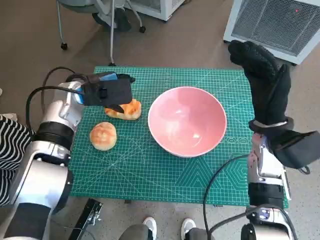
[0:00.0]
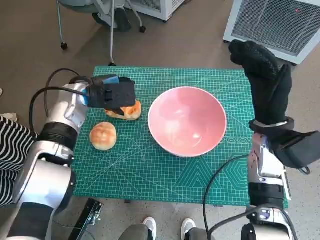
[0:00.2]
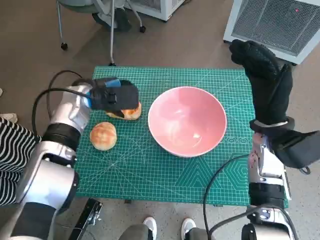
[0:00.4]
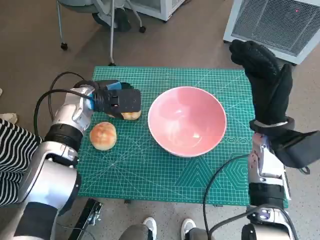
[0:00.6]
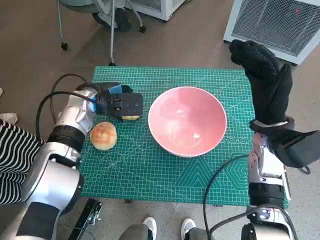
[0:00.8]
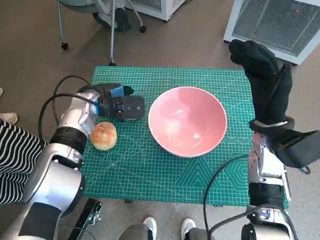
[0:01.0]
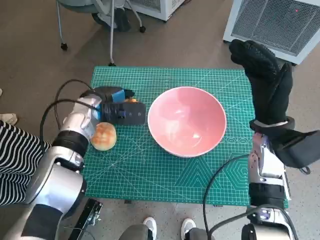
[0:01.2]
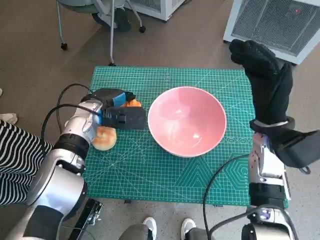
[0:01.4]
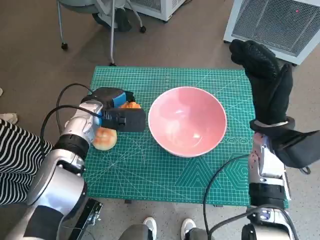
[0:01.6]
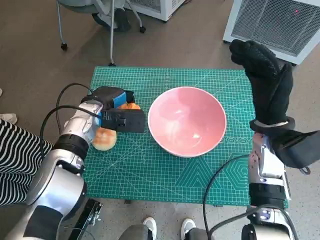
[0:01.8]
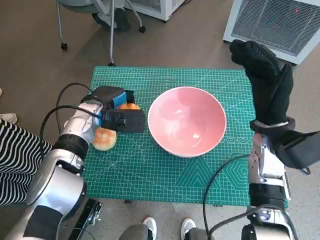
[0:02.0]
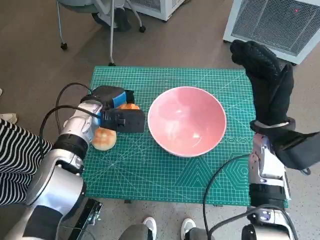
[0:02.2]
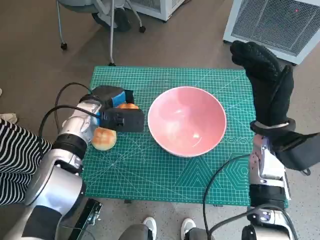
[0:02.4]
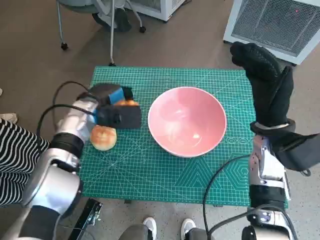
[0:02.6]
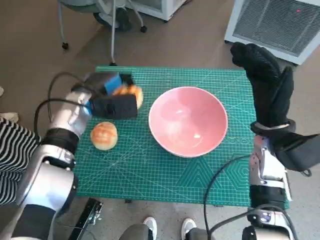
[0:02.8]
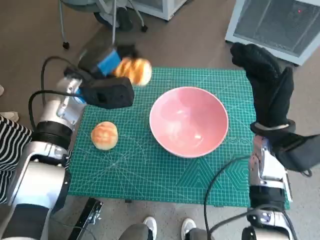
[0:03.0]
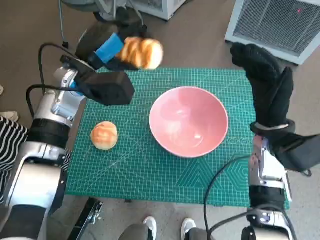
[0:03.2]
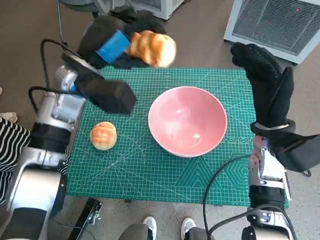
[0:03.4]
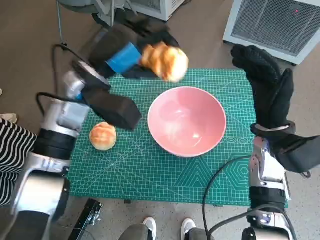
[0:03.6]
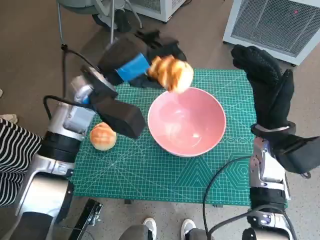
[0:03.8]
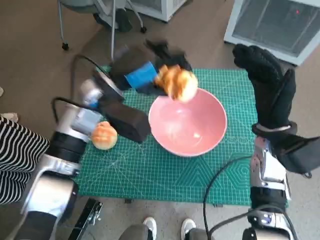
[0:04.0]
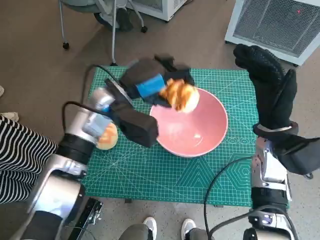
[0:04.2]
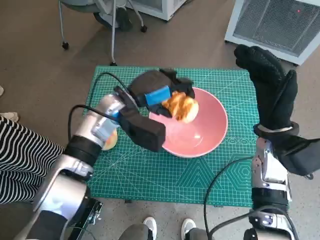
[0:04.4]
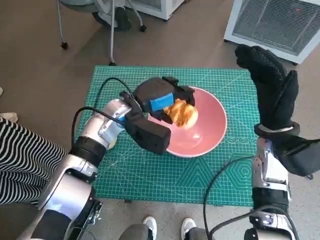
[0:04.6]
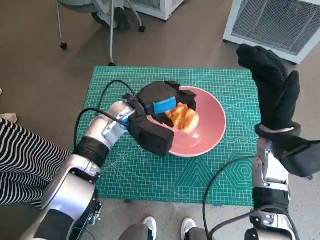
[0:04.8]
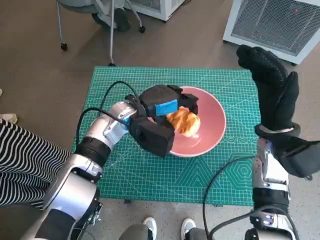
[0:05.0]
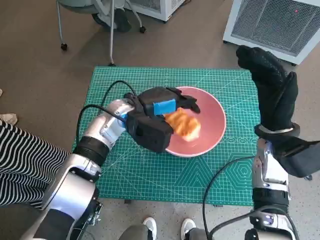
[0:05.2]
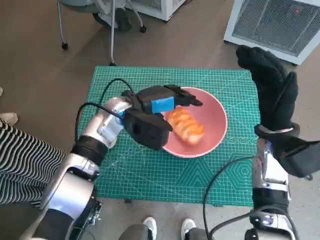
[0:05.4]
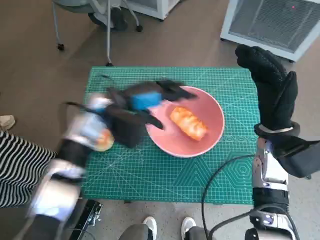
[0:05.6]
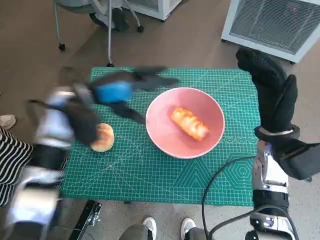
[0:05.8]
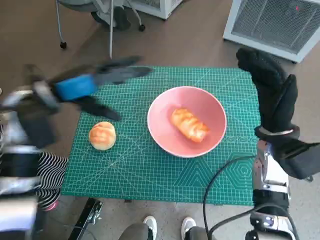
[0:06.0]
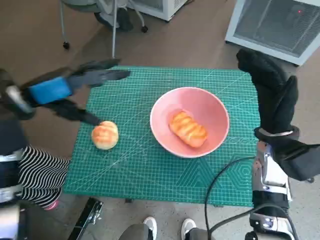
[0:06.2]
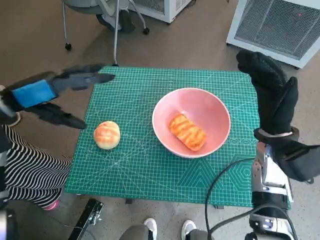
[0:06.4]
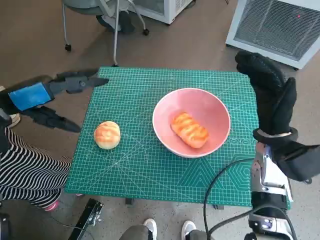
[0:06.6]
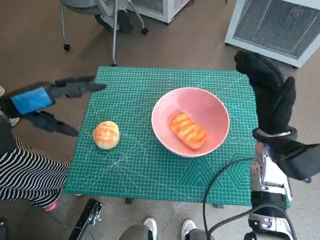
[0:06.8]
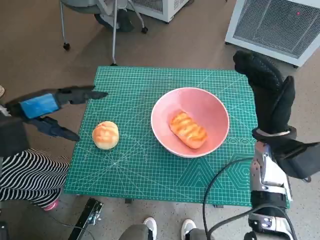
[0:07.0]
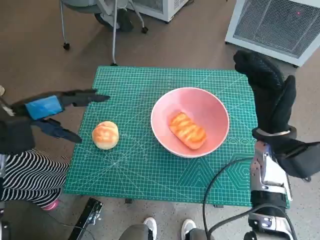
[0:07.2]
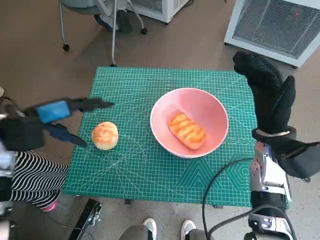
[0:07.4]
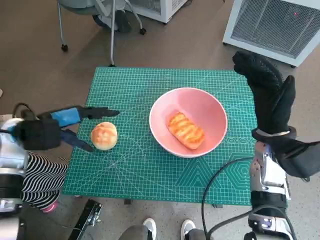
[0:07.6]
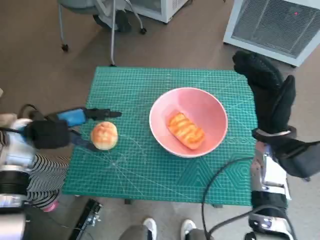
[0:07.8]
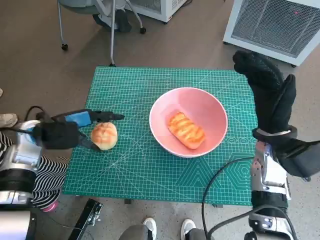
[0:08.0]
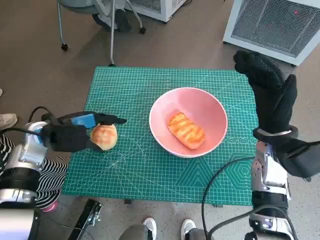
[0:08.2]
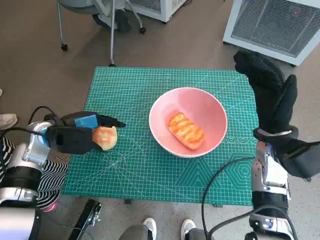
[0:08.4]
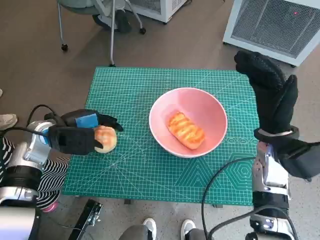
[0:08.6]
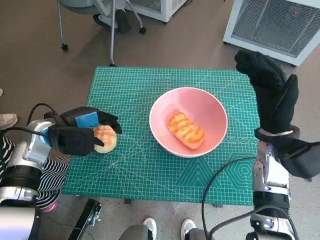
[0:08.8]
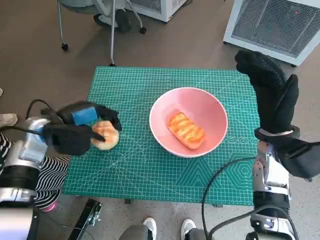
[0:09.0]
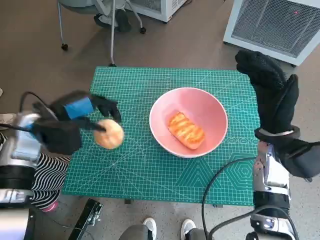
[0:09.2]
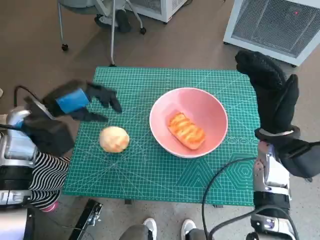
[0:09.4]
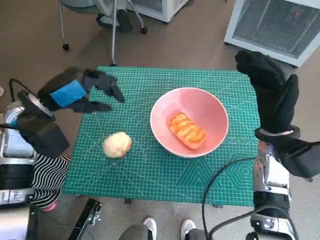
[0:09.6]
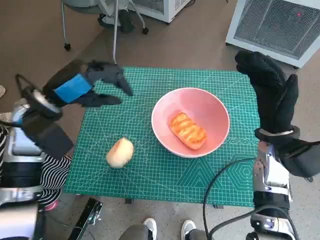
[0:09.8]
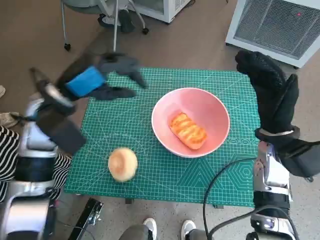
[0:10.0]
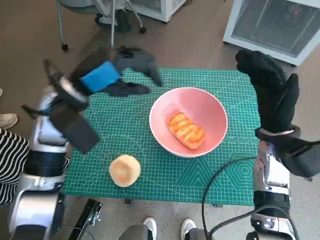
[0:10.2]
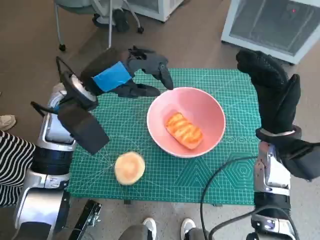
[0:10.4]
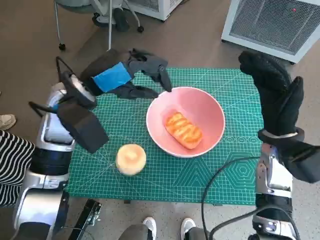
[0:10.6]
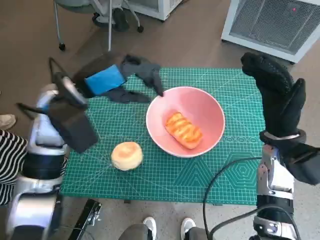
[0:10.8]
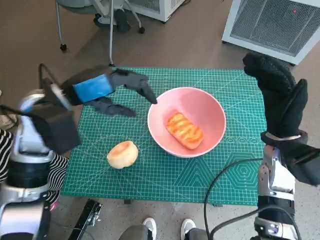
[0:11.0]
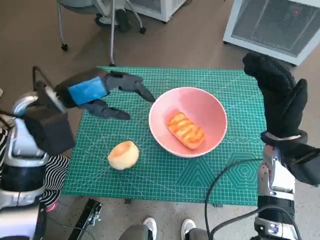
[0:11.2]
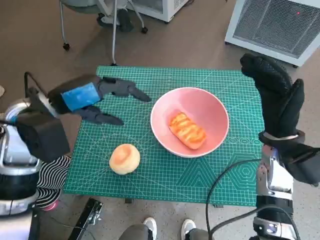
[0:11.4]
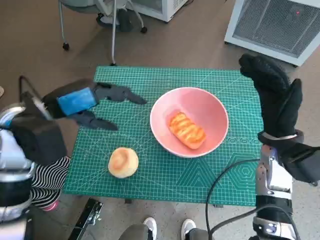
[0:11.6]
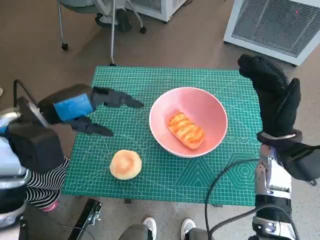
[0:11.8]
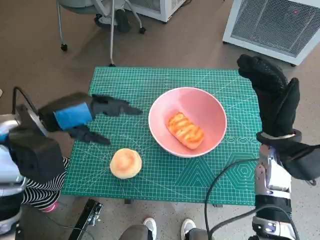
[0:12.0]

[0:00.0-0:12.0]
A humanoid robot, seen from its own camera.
Task of the whole recording: Push the bowl into the center of the table and put the bread into the bowl.
Step, 0:02.0 to 0:05.6: Place the long bread in pink bowl with left hand.
Step, 0:06.0 to 0:08.8: Grasp the round bread with left hand.
0:00.0 to 0:01.6: The left hand goes about 5 cm downward.
0:01.6 to 0:03.0: The left hand is displaced upward by roughly 5 cm.
0:03.0 to 0:04.4: The left hand shifts about 10 cm to the right.
0:04.4 to 0:06.0: The left hand moves to the left and upward, some 15 cm.
0:06.0 to 0:07.6: The left hand is displaced downward and to the left by about 10 cm.
0:07.6 to 0:09.0: There are only small adjustments of the hands.
0:09.0 to 0:10.4: The left hand heads to the right and upward, covering about 15 cm.
0:10.4 to 0:12.0: The left hand shifts roughly 10 cm to the left and backward.

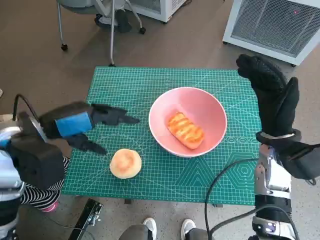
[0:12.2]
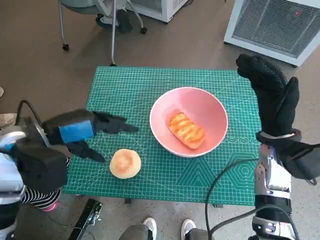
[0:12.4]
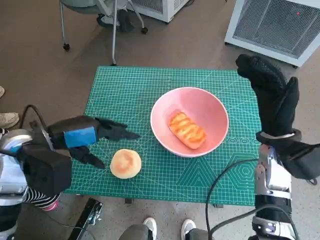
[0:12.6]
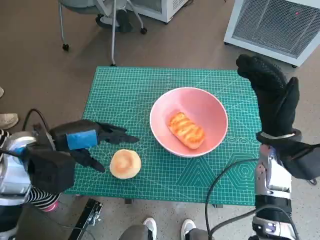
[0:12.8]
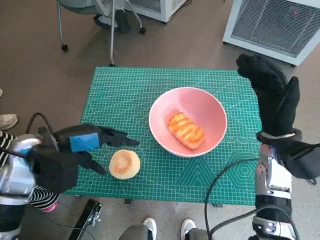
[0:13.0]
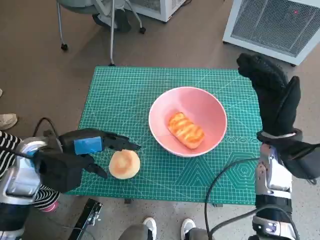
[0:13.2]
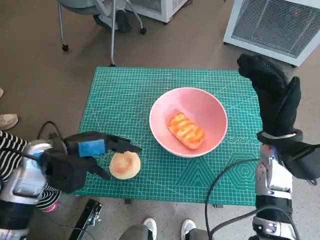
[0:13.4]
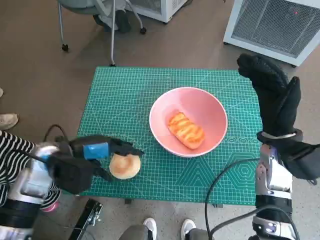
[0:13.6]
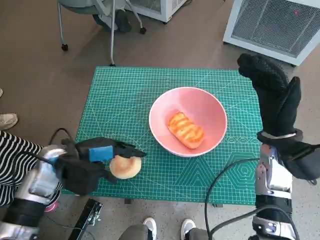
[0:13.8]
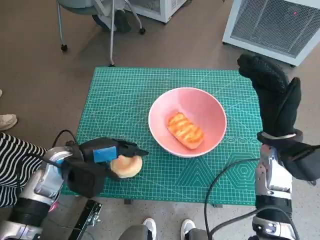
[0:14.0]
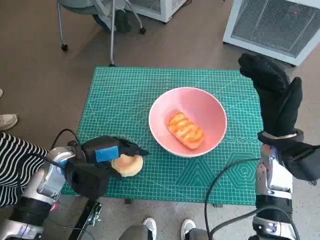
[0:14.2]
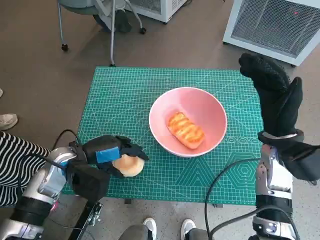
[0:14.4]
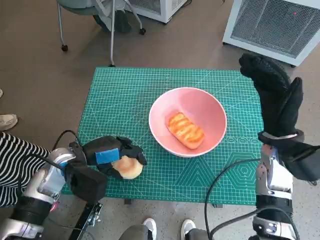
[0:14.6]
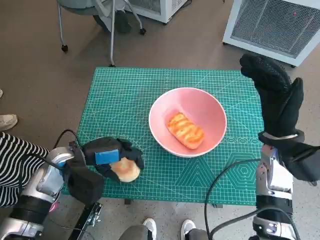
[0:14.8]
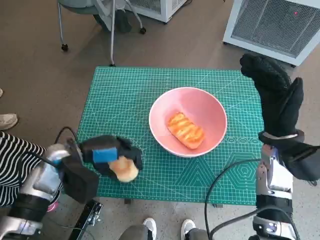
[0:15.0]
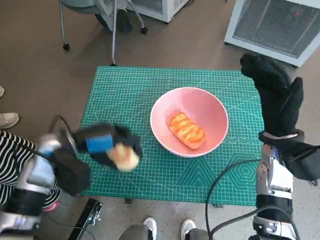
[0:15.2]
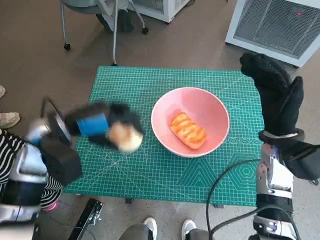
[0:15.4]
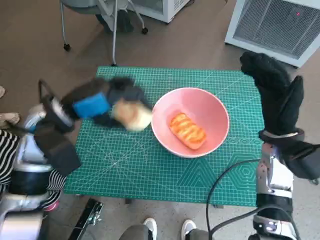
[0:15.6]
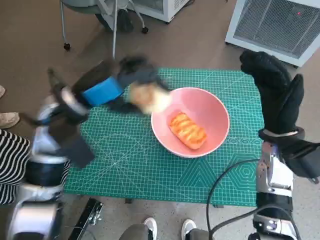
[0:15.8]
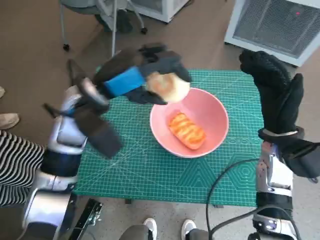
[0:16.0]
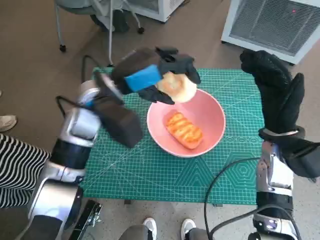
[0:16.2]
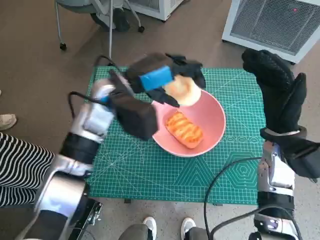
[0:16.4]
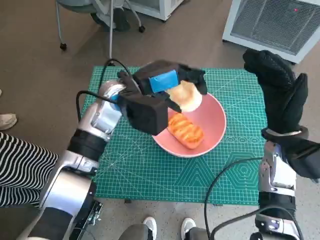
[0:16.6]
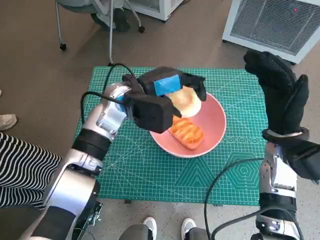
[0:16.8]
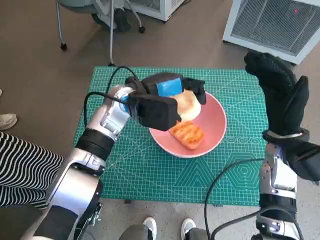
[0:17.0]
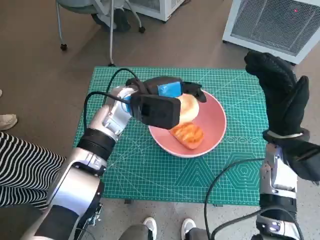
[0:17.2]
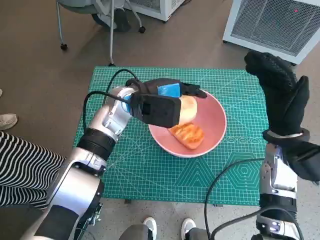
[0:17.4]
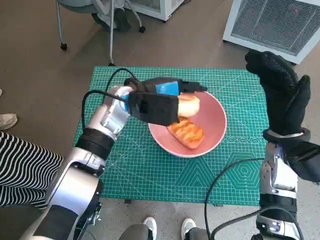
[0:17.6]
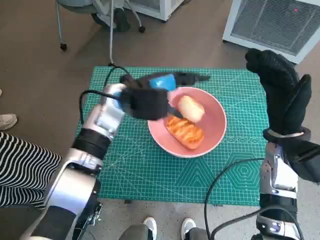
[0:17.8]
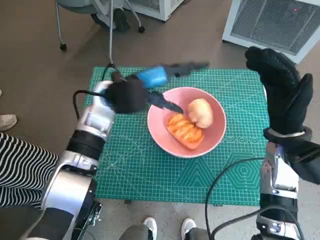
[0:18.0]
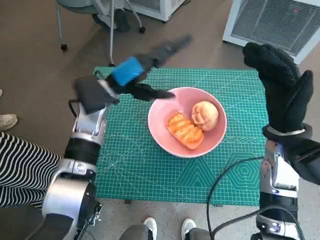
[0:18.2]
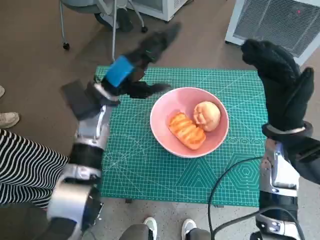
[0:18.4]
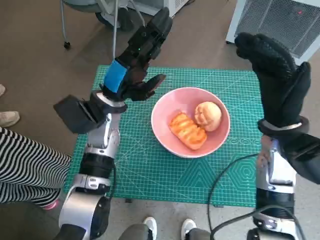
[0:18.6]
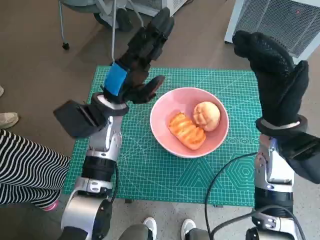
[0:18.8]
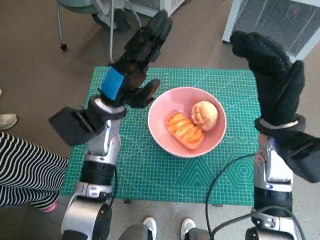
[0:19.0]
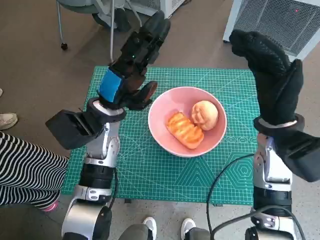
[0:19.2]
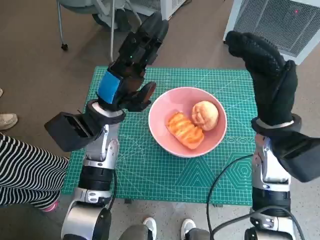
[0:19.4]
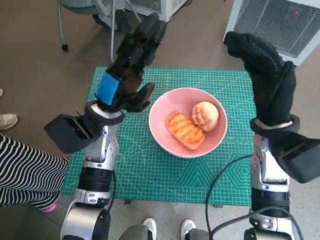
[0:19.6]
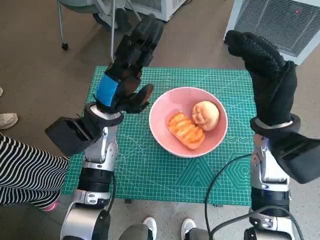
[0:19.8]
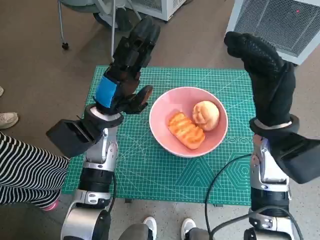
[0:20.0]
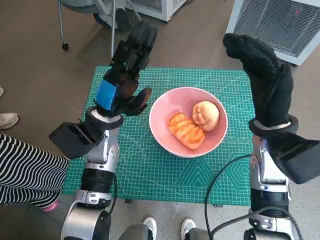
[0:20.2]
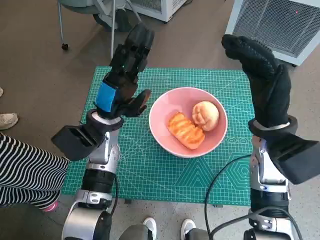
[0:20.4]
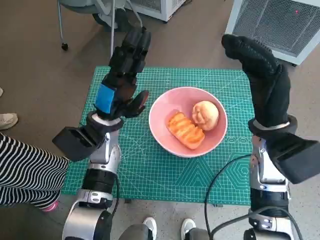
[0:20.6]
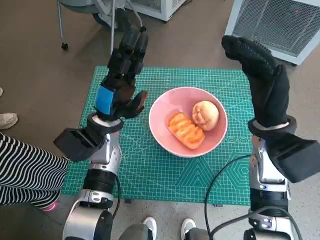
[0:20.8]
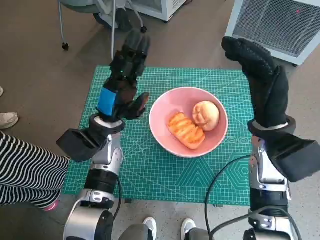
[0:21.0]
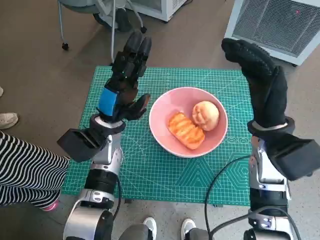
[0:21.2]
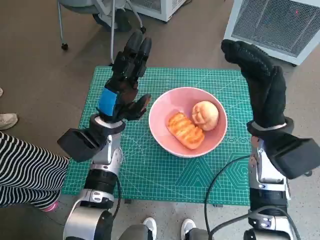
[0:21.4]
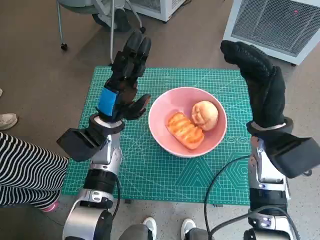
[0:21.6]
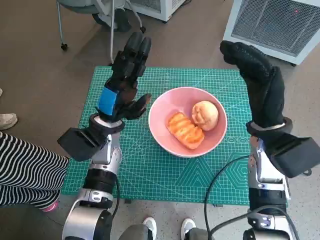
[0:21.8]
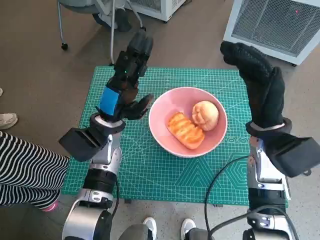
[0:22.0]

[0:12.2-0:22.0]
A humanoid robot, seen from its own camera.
Task of the whole recording: Push the bowl into the center of the table and put the bread into the bowl.
Step, 0:12.2 to 0:14.4: Grasp the round bread with left hand.
Step, 0:14.6 to 0:18.2: Place the round bread in pink bowl with left hand.
0:12.2 to 0:13.6: The left hand shifts some 10 cm downward.
0:13.6 to 0:15.0: The hands move only a little.
0:15.0 to 0:16.4: The left hand moves to the right, upward and forward, approximately 20 cm.
0:17.8 to 0:19.2: The left hand shifts by about 5 cm.
0:20.6 to 0:22.0: There are only small adjustments of the hands.
